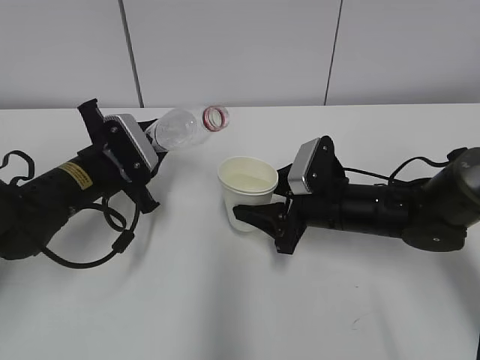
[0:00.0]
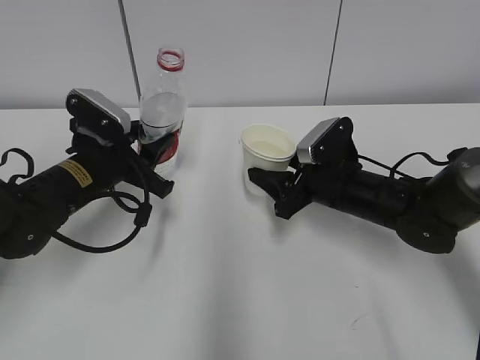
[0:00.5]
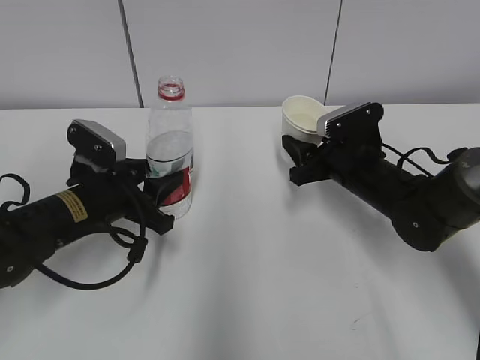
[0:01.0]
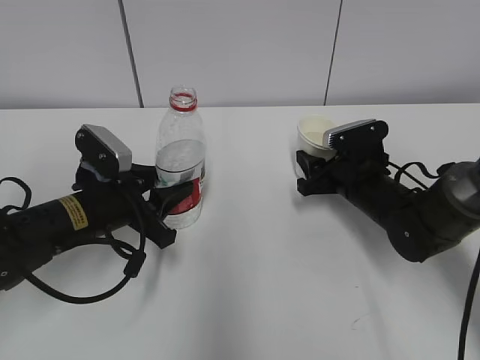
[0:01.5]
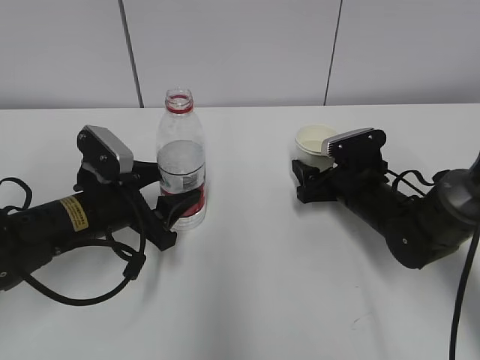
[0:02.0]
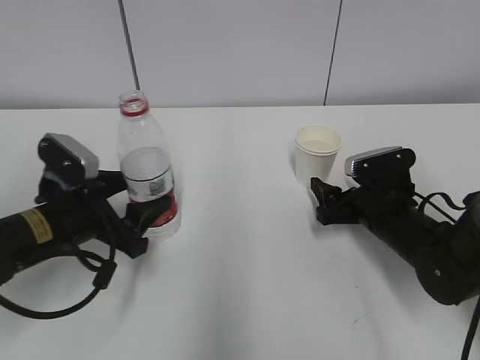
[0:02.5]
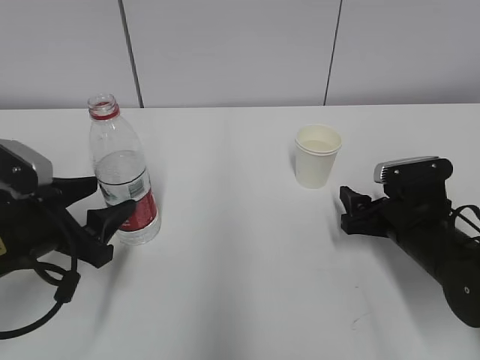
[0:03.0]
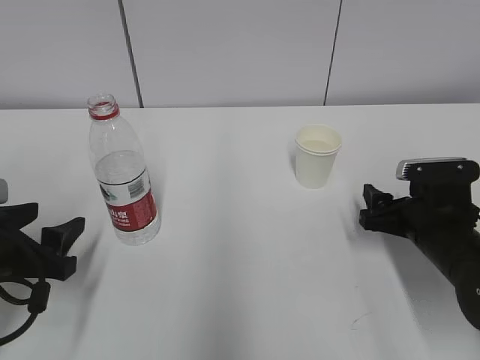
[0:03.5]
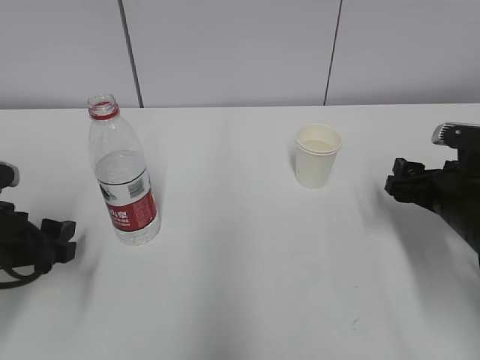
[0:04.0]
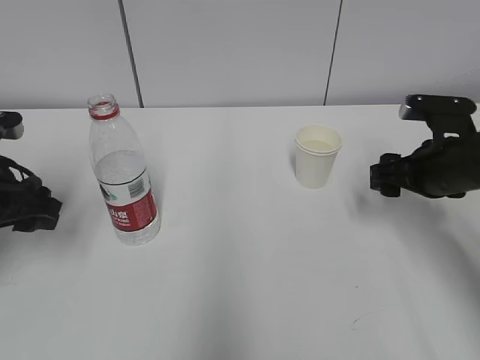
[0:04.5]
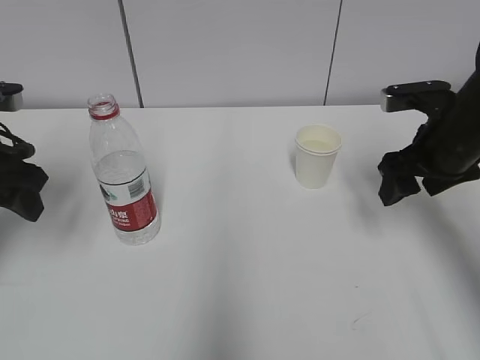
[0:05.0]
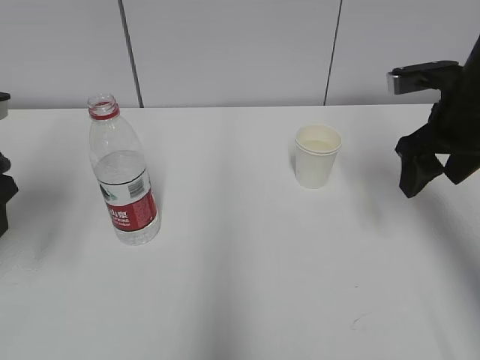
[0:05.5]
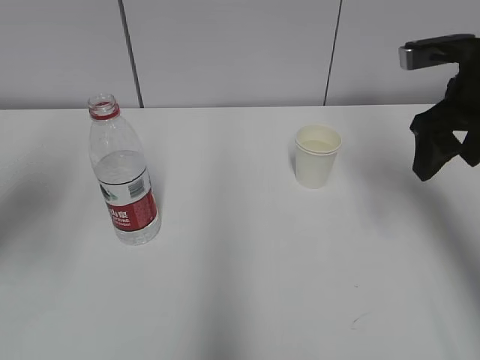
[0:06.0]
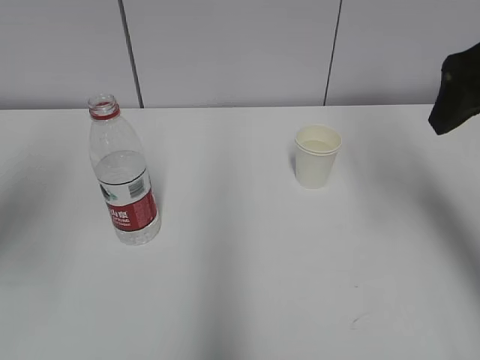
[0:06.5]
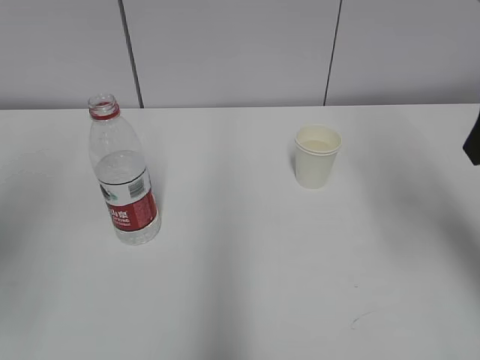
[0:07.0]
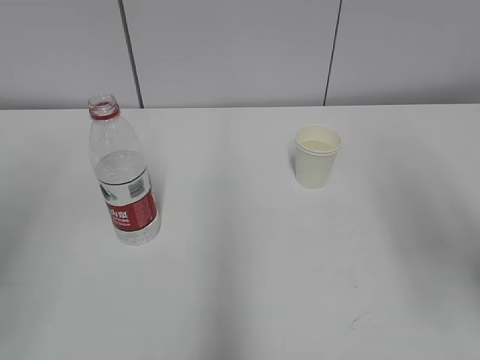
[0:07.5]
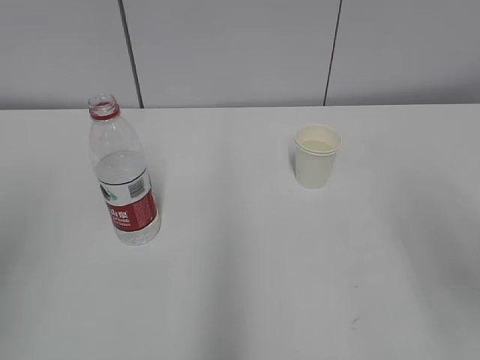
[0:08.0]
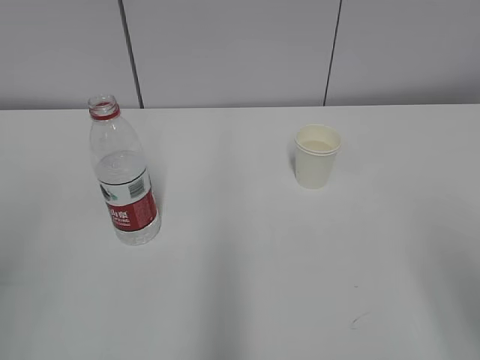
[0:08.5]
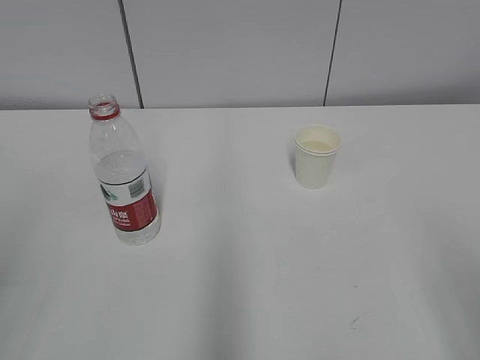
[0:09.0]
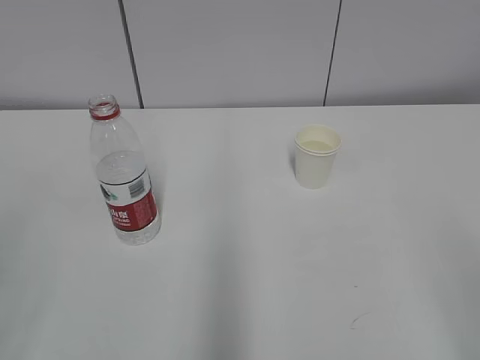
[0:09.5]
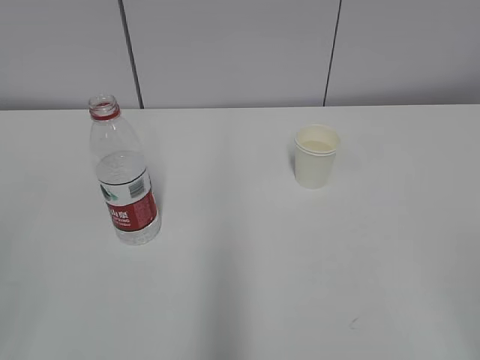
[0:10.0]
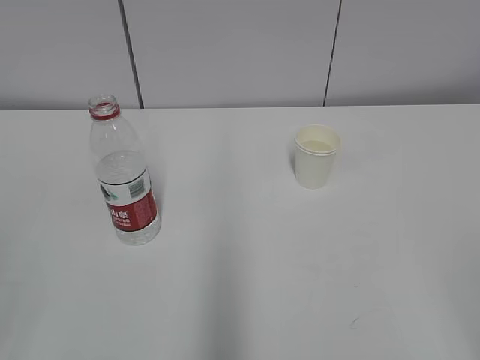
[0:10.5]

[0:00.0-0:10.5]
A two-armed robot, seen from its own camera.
0:00.0 to 0:02.0: The right gripper moves to the right, some 5 cm, and opens up. Meanwhile the left gripper moves some 5 cm, and opens its fingers.
0:02.0 to 0:04.0: The left gripper travels to the left and backward by about 10 cm, while the right gripper travels backward, to the right and upward by some 15 cm.
0:04.0 to 0:06.5: The grippers both shift upward by roughly 20 cm.
0:06.5 to 0:08.5: The left gripper is displaced backward and downward by roughly 15 cm, while the right gripper shifts about 20 cm backward.

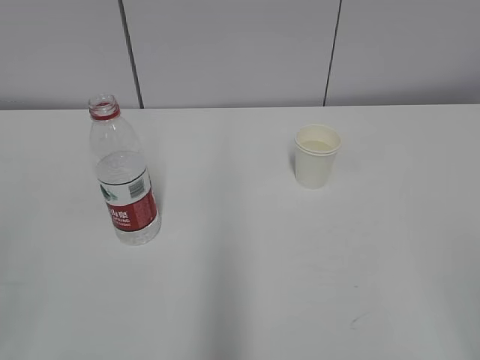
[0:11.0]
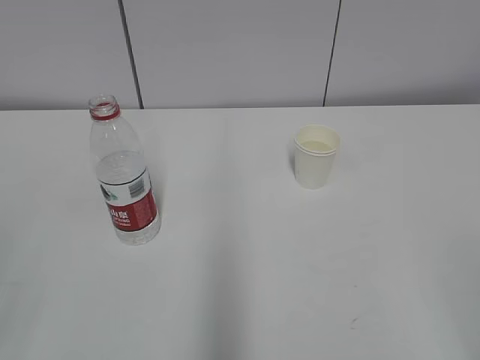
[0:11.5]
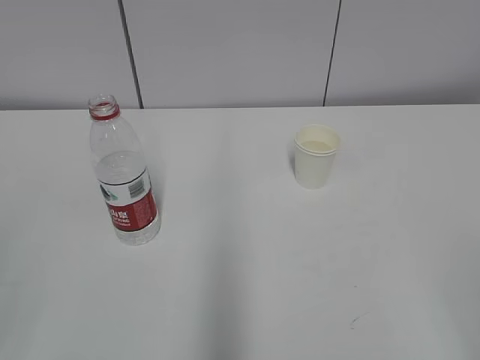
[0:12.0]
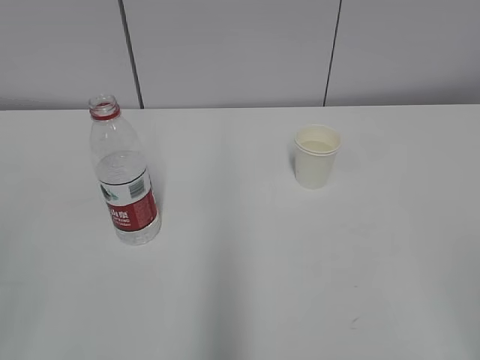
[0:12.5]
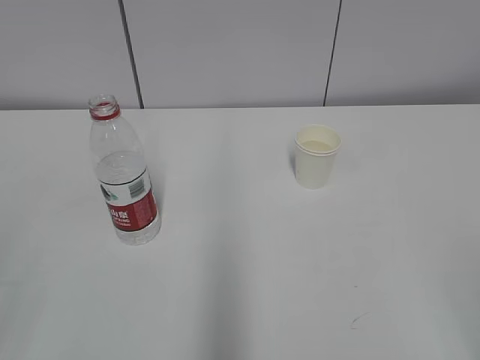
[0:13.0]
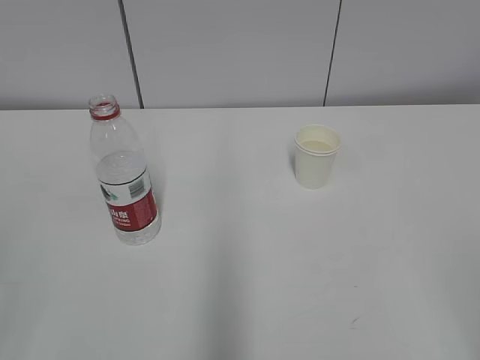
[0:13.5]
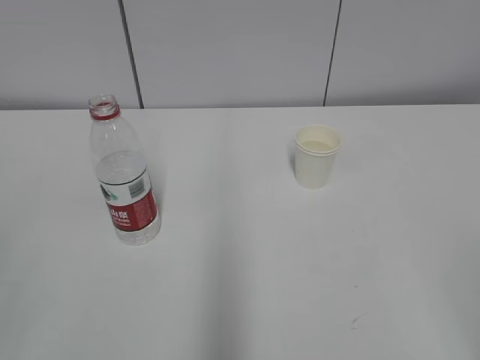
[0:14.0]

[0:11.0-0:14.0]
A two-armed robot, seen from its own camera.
0:11.0 to 0:14.0: Neither gripper changes place.
